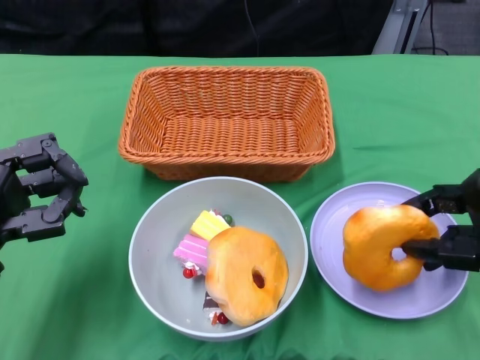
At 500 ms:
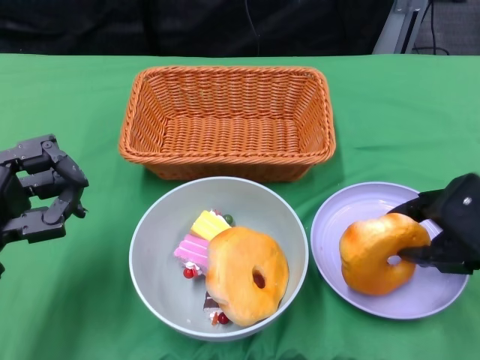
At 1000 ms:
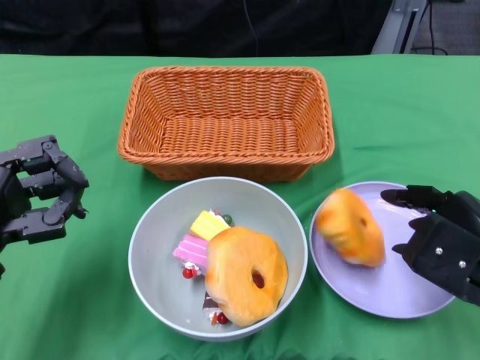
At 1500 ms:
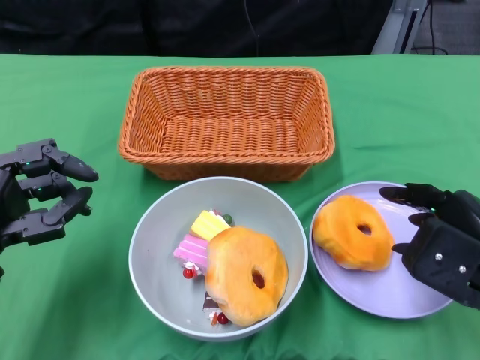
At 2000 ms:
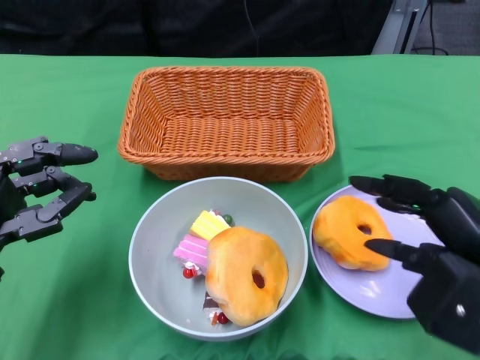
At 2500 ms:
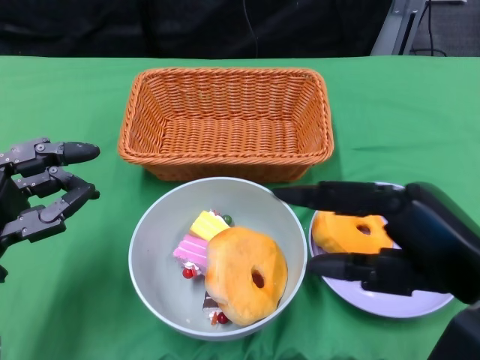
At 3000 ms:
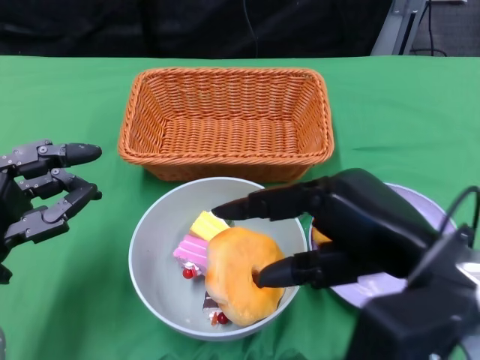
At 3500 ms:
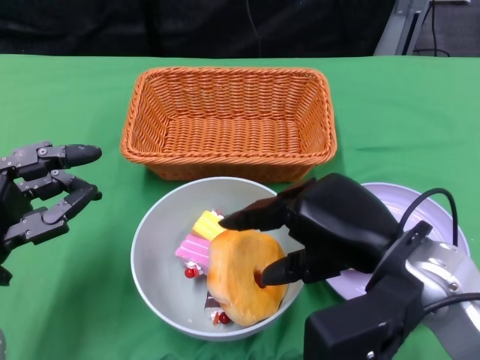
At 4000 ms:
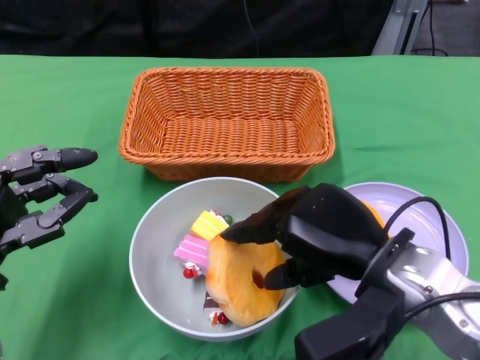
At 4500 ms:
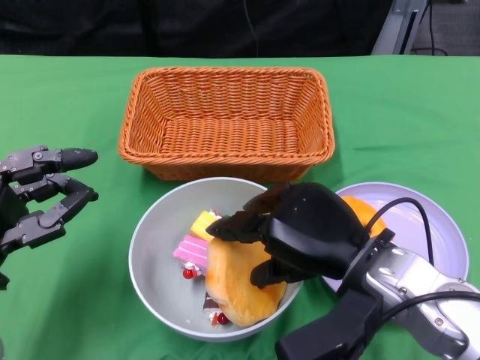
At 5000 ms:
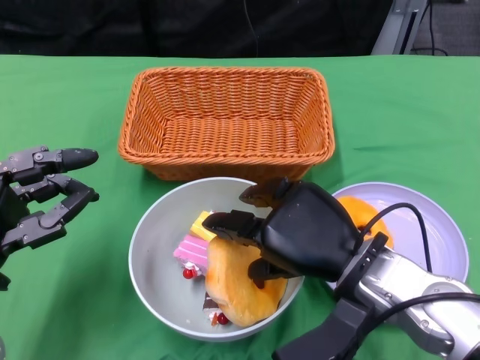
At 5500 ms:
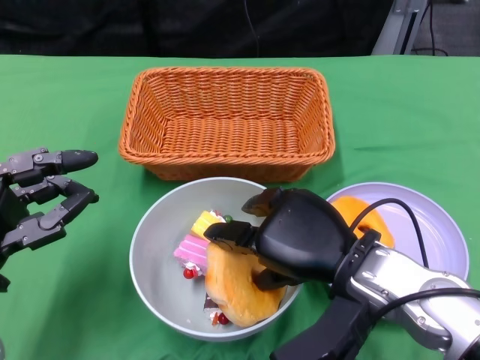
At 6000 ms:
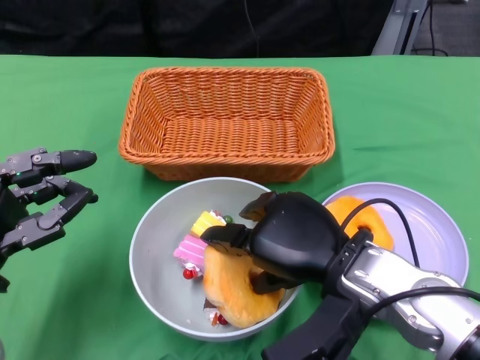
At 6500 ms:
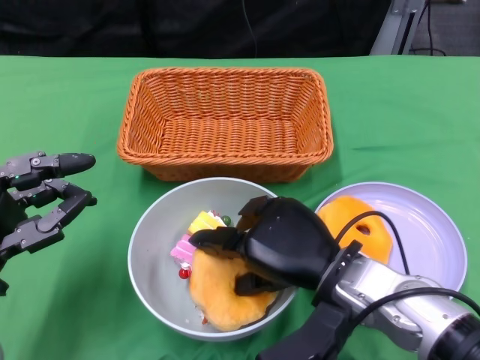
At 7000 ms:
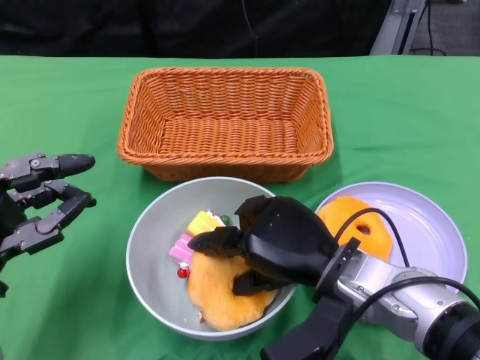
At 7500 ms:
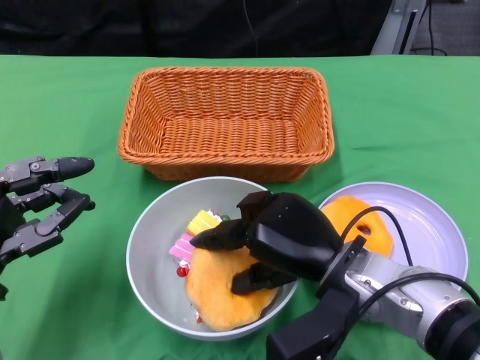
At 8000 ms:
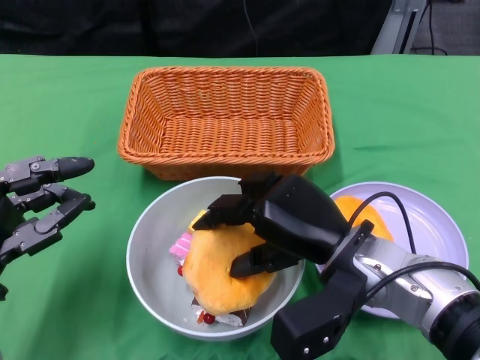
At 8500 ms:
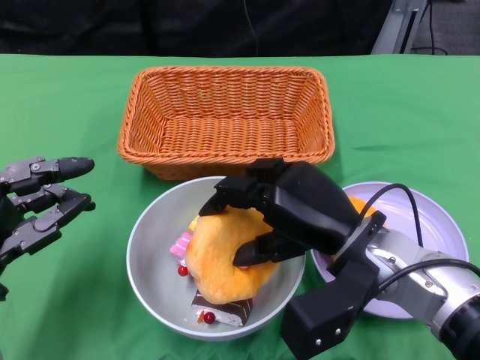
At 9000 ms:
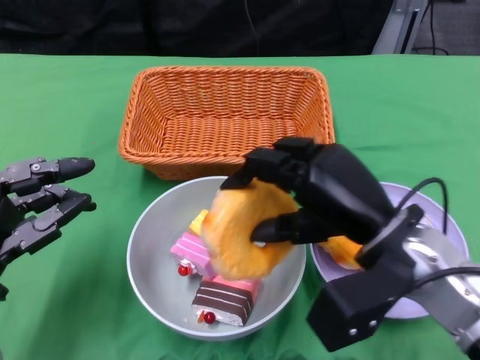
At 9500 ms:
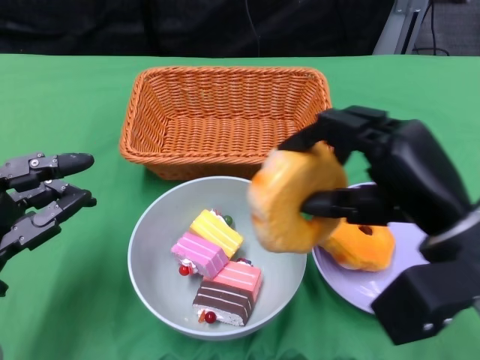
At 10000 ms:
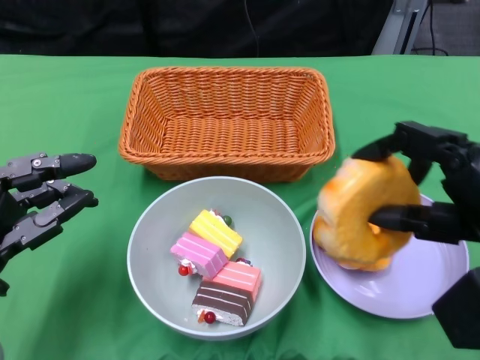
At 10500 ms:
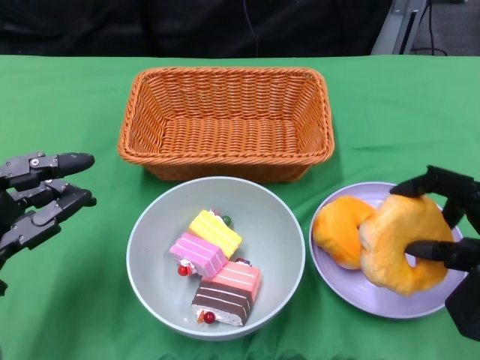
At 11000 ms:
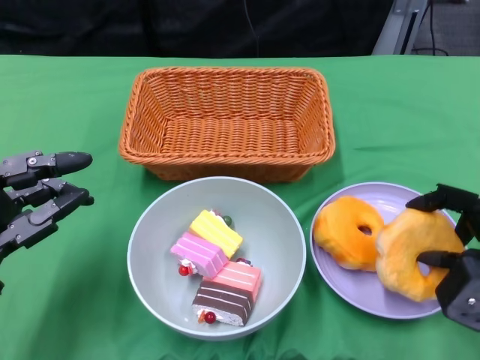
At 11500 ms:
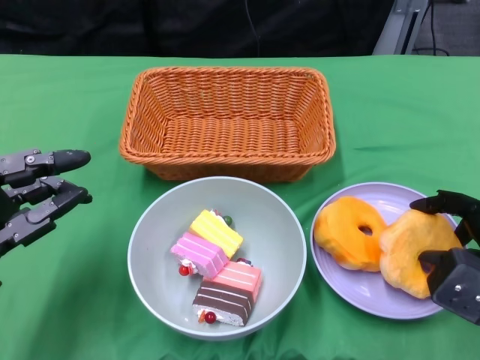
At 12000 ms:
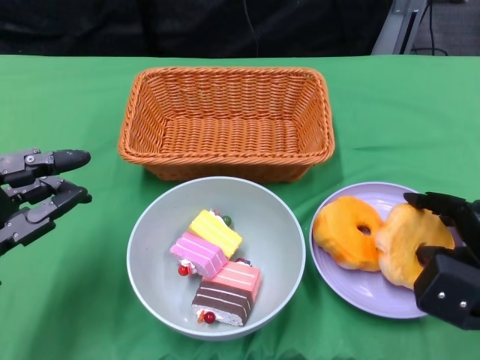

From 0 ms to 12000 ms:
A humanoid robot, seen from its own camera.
From 0 ms to 2000 ms: The right hand ends up approximately 5 cm from where it was.
From 2000 ms to 4000 ms: The right hand heads to the left, covering about 10 cm.
From 4000 ms to 6000 ms: There are only small adjustments of the hands.
From 8000 ms to 10000 ms: The right hand travels to the right and upward by about 15 cm.
From 10000 ms to 12000 ms: The right hand is displaced downward by some 10 cm.

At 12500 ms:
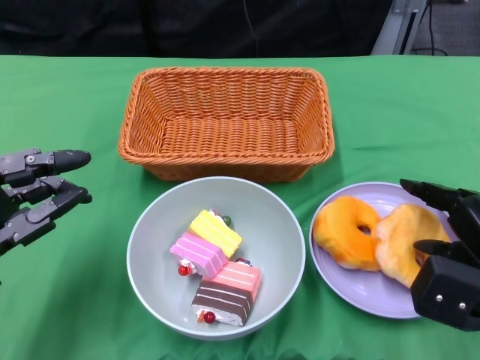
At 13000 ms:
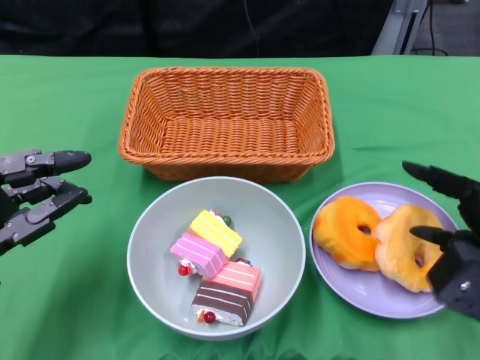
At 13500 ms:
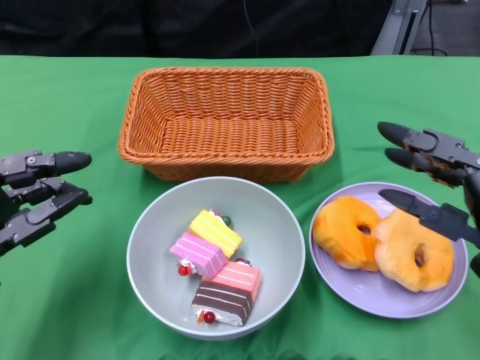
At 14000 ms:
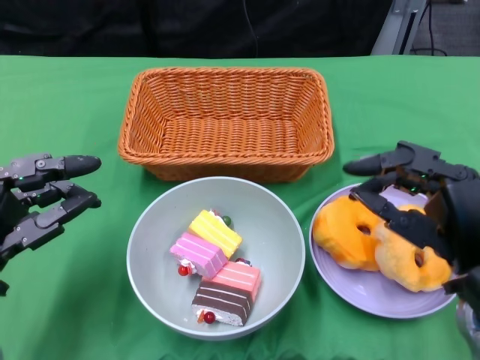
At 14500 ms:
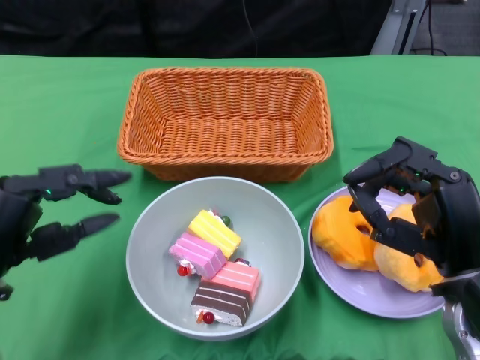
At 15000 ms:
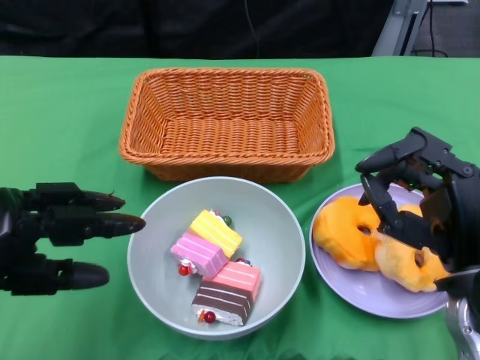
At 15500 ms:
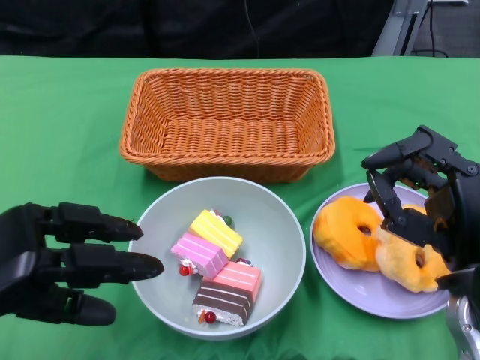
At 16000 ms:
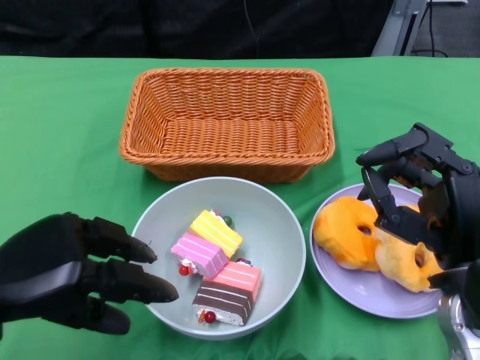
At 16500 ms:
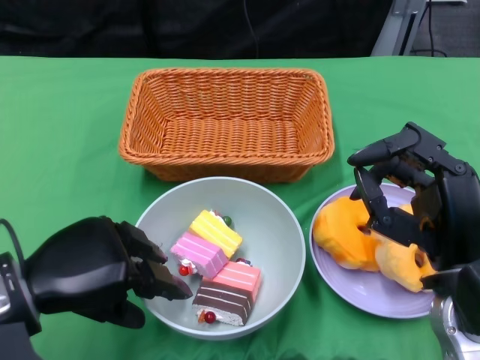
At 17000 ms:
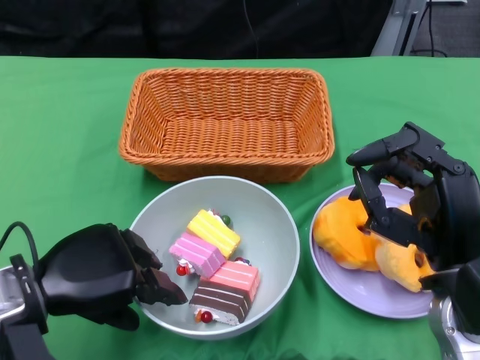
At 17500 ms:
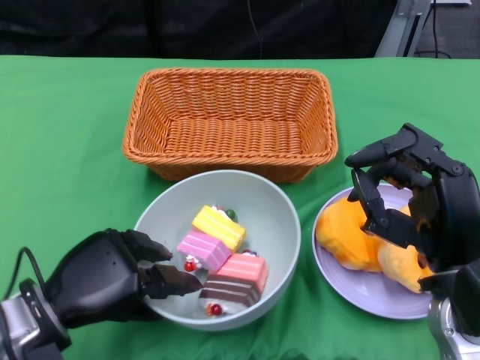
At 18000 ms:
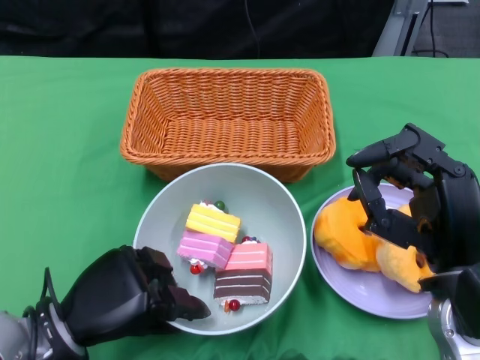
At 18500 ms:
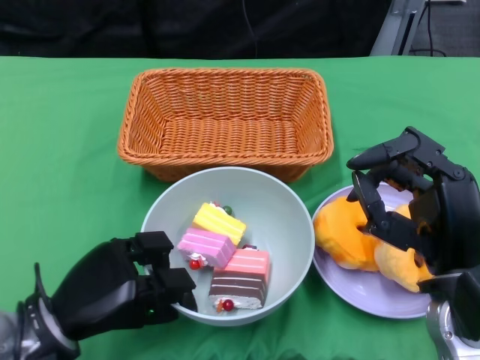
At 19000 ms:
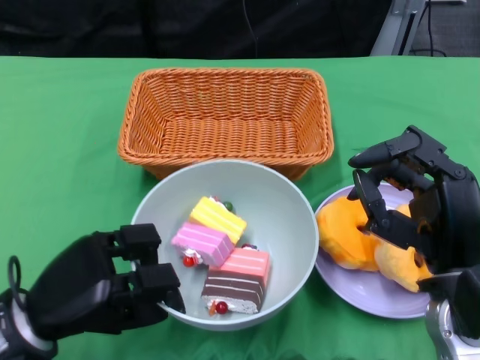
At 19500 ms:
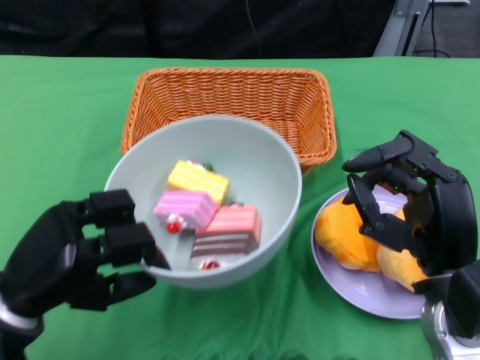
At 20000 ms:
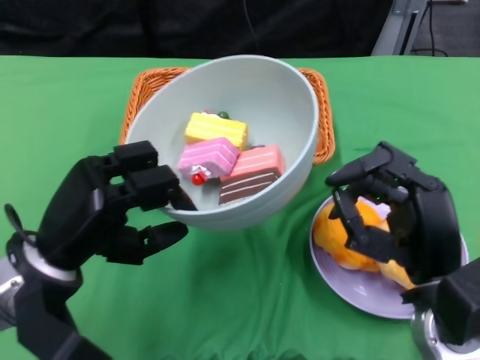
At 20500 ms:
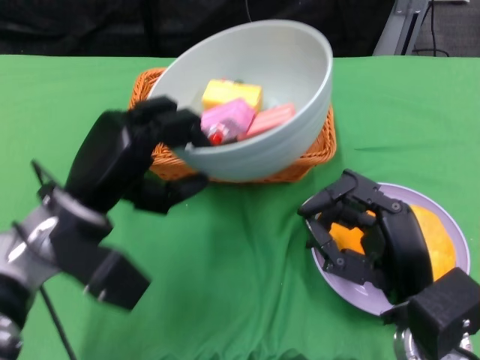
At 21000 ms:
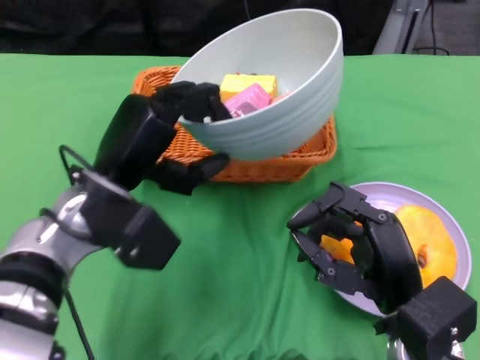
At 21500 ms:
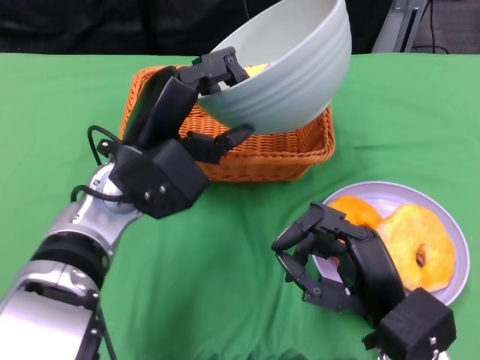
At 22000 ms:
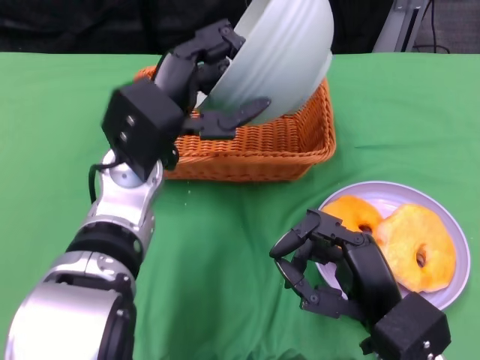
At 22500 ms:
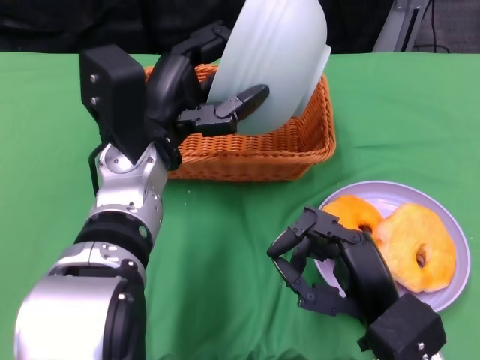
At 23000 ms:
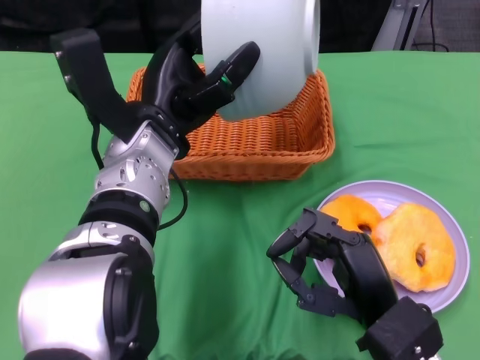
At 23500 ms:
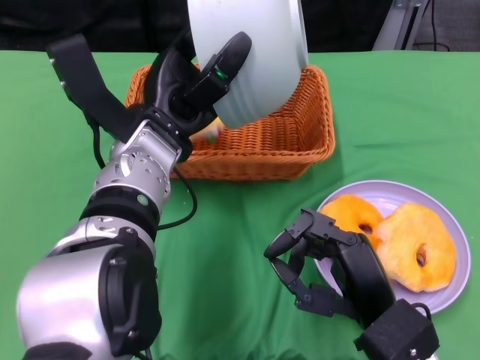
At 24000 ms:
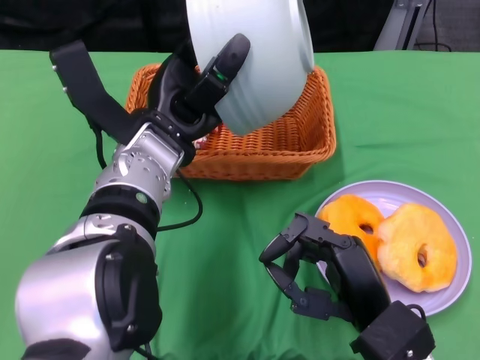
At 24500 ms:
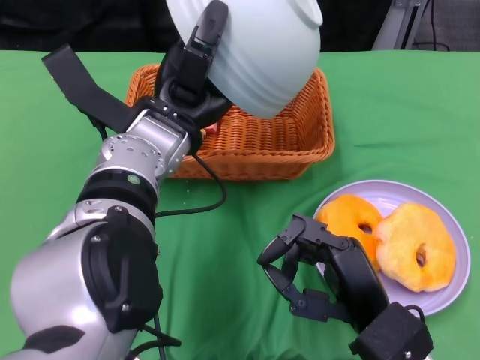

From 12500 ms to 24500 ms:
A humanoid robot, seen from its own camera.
Step, from 13500 ms to 18000 ms: Grasp the bowl with the left gripper.
Step, from 18500 ms to 23500 ms: Pour the cake into the basket with the left gripper.
From 12500 ms to 14500 ms: The right hand moves to the left, about 5 cm.
From 16500 ms to 18500 ms: The left hand moves downward, roughly 5 cm.
From 18500 ms to 20500 ms: The left hand heads upward and forward, covering about 10 cm.
From 20500 ms to 22500 ms: The left hand is displaced to the right and forward by some 10 cm.

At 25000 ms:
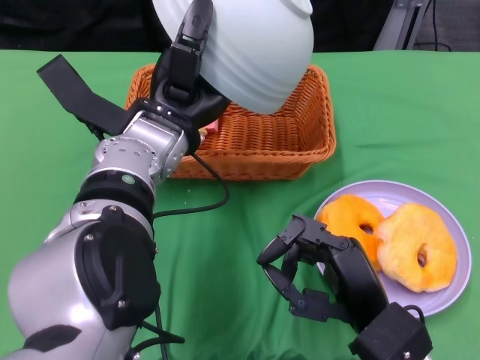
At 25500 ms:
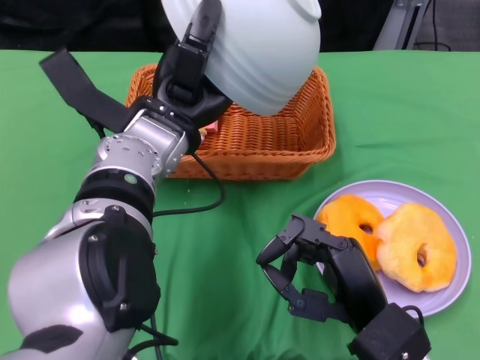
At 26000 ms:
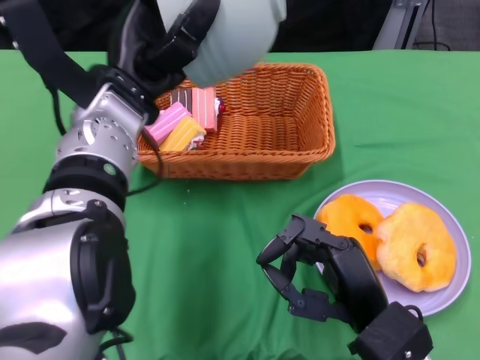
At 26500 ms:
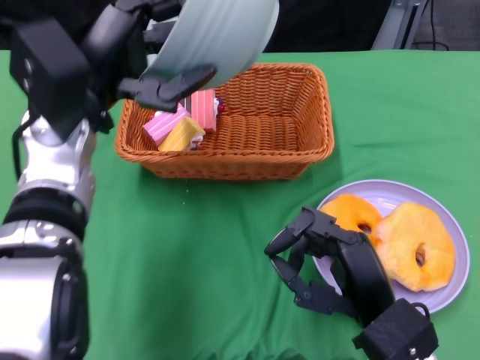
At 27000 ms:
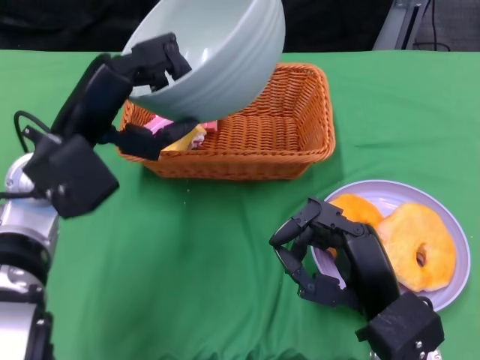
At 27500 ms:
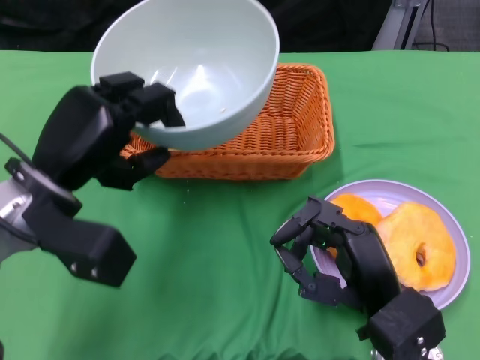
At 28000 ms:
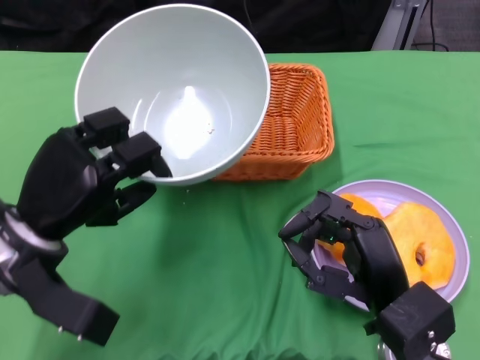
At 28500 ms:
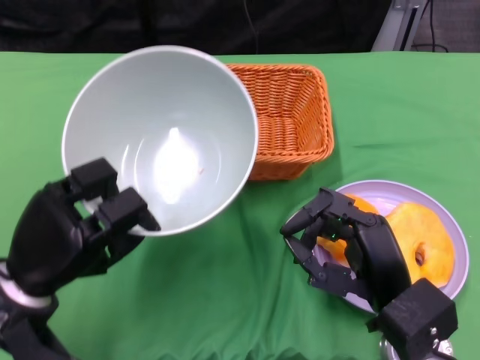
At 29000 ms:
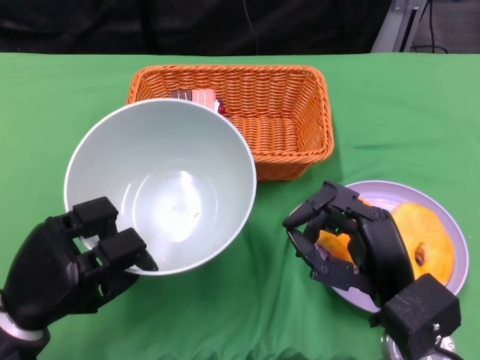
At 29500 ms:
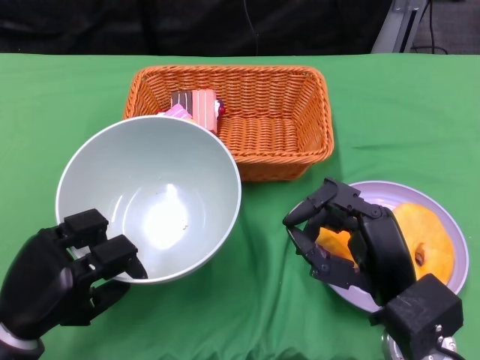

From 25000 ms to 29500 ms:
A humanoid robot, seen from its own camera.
From 25000 ms to 27000 ms: The left hand shifts approximately 10 cm to the left.
From 27000 ms to 29500 ms: The left hand travels downward, backward and to the left by some 20 cm.
